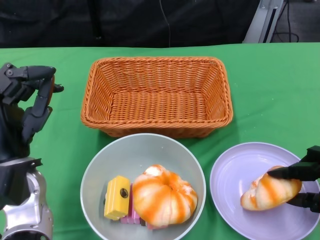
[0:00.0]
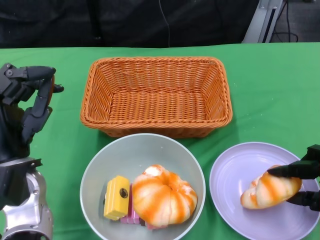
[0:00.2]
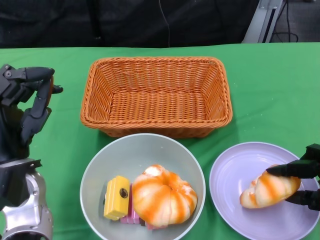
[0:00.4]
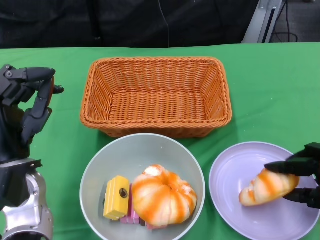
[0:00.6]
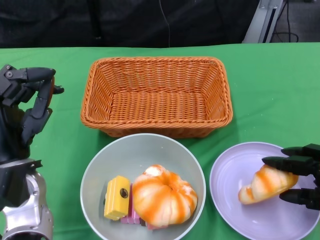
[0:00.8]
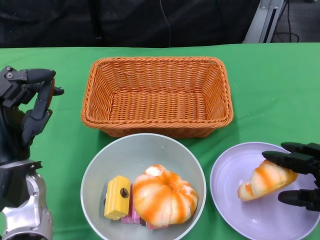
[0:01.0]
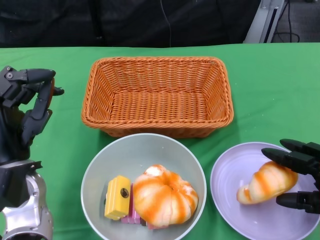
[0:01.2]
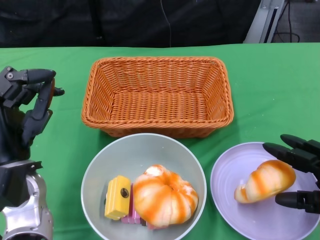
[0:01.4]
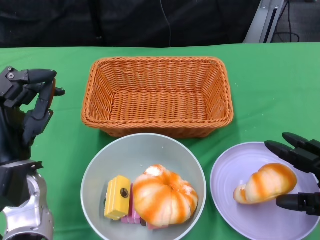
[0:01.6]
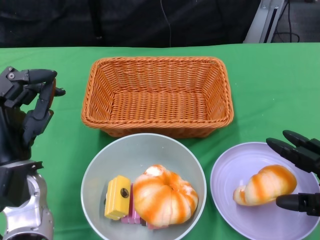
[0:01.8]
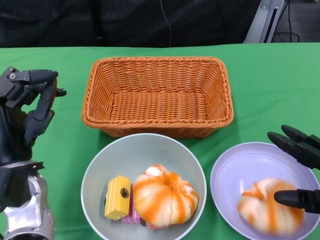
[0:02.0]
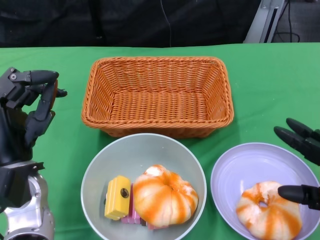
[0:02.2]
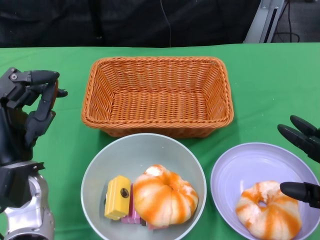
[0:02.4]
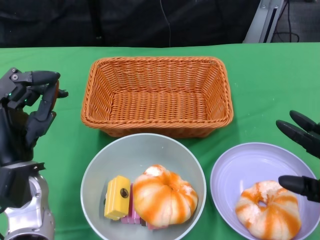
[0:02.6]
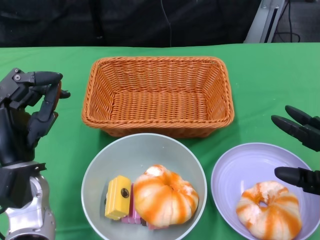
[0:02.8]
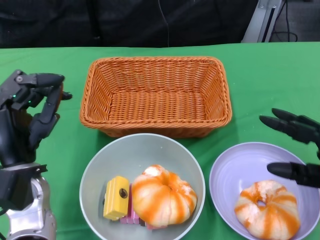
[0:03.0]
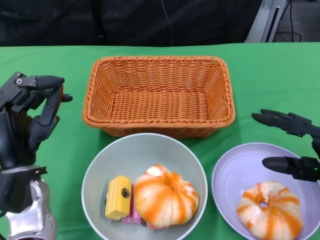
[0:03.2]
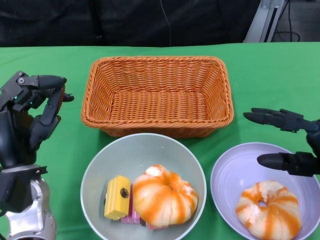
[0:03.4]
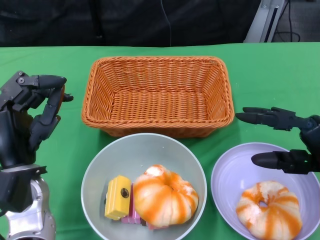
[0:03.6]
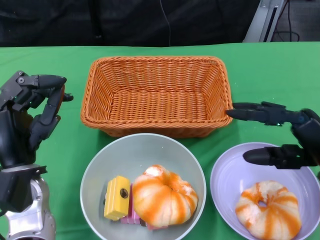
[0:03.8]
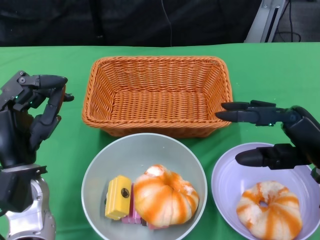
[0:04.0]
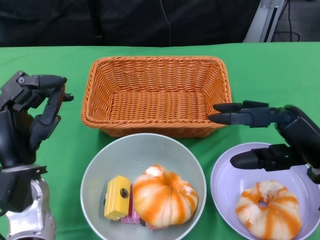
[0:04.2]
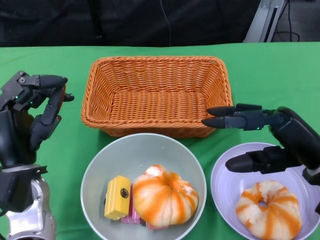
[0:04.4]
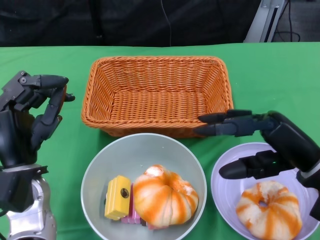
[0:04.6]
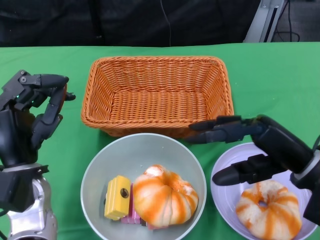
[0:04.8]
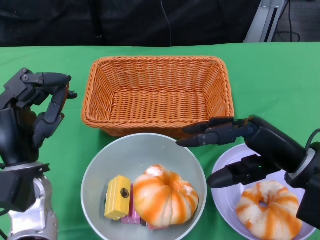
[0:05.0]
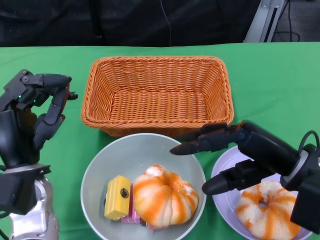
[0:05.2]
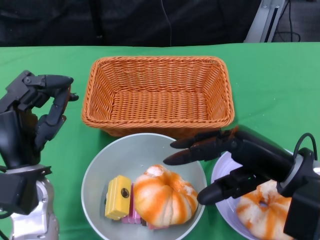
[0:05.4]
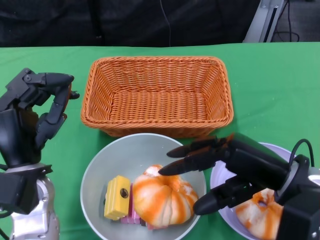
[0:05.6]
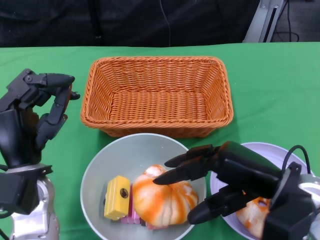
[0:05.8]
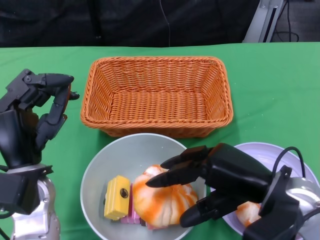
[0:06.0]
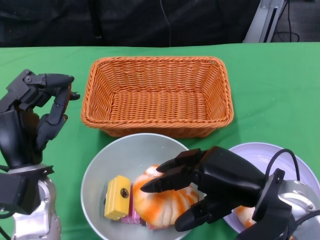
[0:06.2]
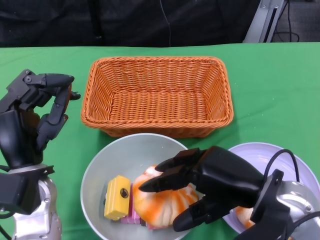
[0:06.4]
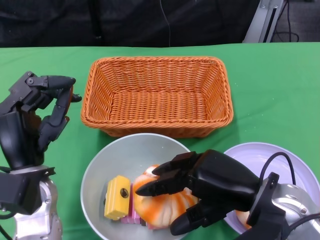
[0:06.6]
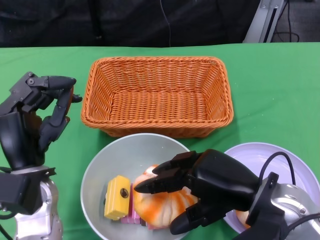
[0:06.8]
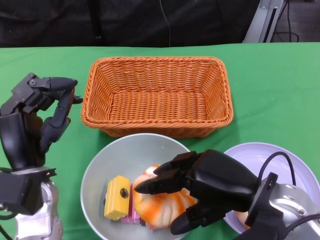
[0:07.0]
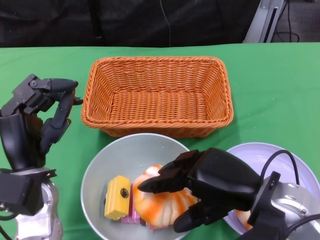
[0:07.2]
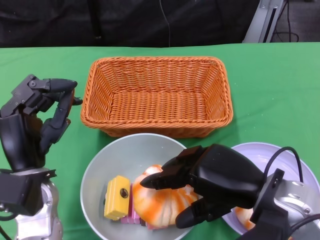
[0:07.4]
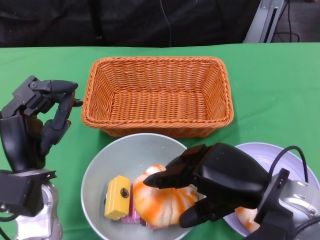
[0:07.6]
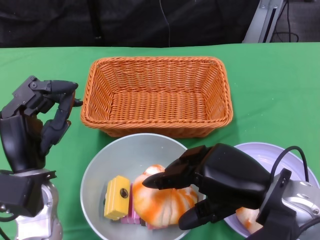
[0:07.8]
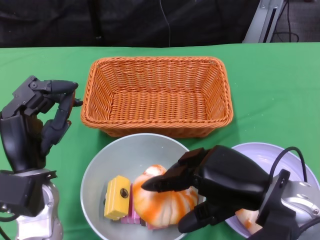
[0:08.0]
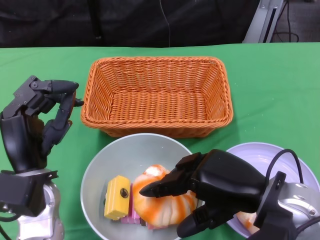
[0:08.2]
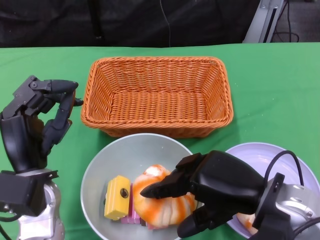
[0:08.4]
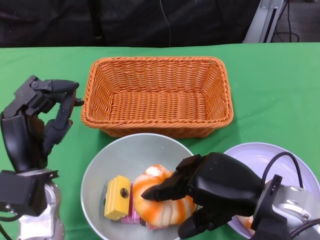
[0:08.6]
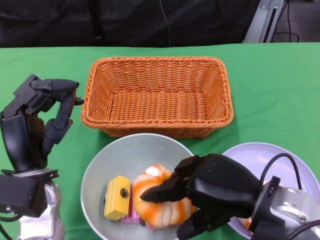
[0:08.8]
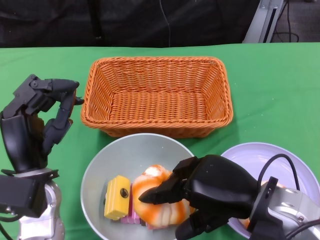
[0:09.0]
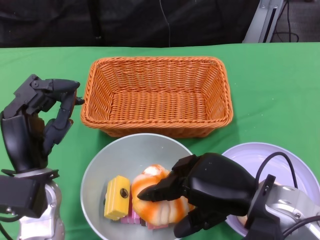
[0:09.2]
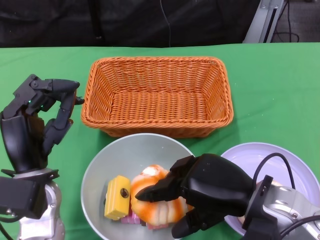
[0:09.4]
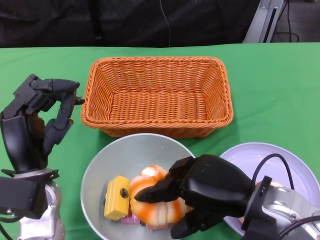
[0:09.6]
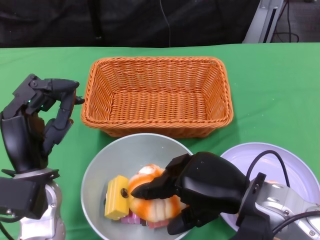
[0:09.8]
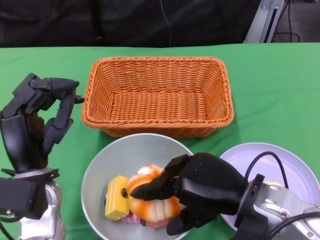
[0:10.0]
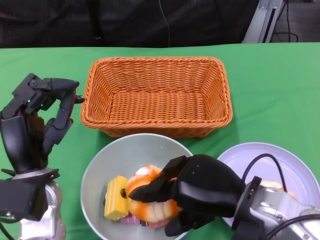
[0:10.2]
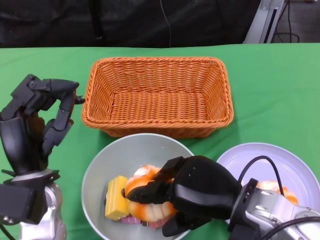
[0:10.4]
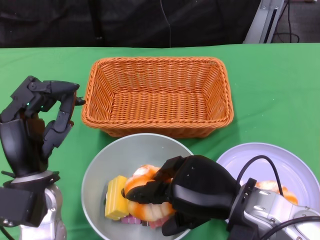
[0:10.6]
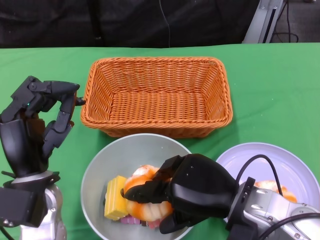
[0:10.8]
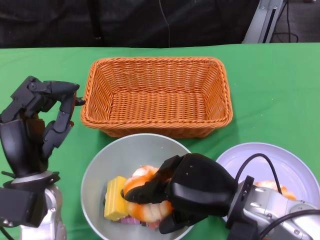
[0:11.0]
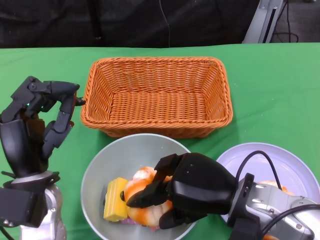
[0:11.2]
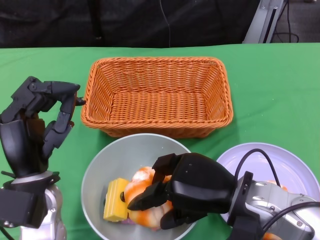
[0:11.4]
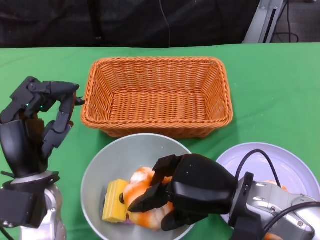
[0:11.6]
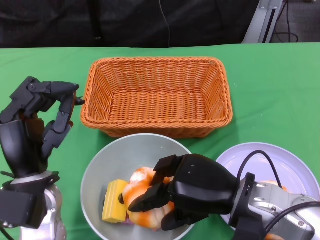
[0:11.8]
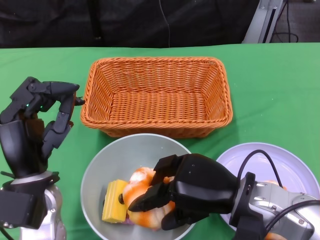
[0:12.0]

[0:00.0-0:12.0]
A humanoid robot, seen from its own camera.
0:00.0 to 0:01.6: Both hands stay about where they are.
0:01.6 to 0:03.0: The hands stay close to where they were, moving slightly.
0:03.0 to 0:04.4: The right hand is displaced upward by approximately 5 cm.
0:04.4 to 0:06.0: The right hand shifts about 5 cm to the left.
0:06.0 to 0:09.0: There are only small adjustments of the hands.
0:09.0 to 0:12.0: There are only small adjustments of the hands.

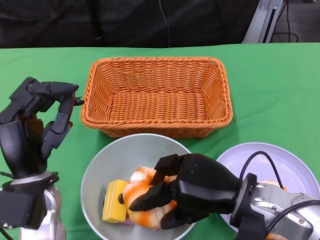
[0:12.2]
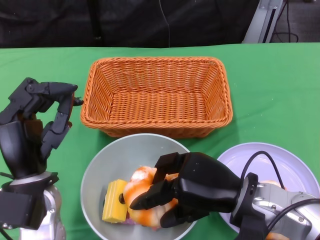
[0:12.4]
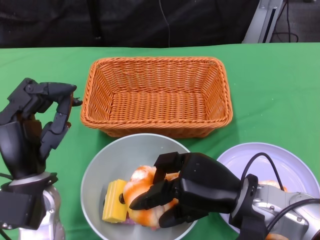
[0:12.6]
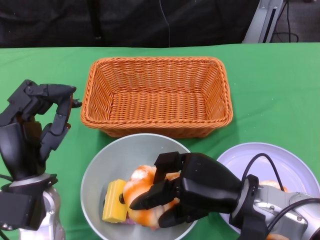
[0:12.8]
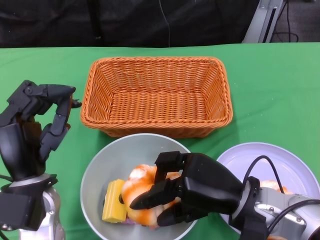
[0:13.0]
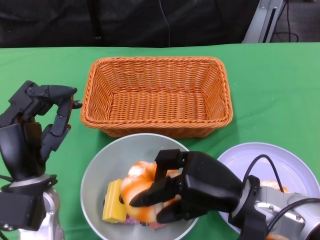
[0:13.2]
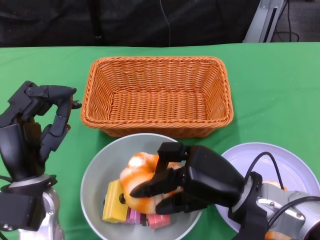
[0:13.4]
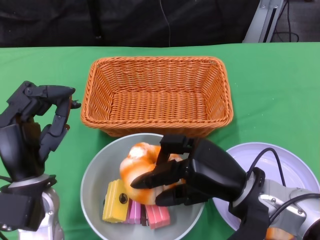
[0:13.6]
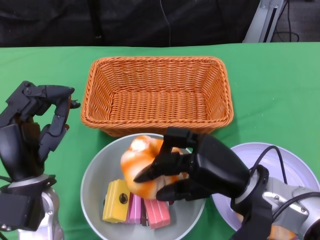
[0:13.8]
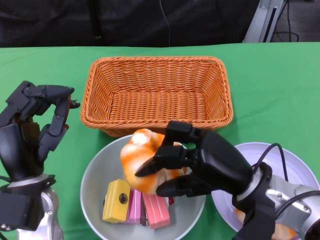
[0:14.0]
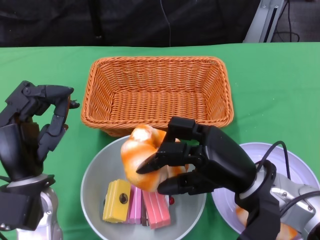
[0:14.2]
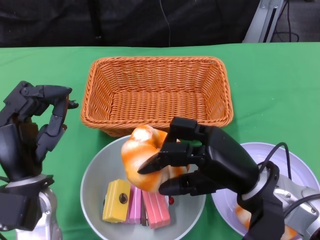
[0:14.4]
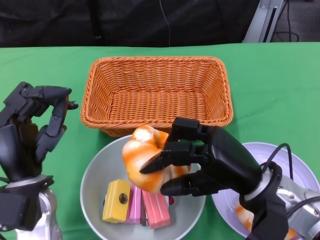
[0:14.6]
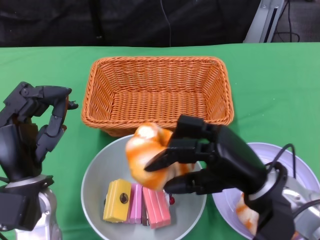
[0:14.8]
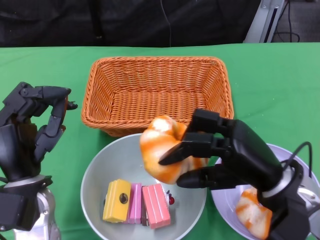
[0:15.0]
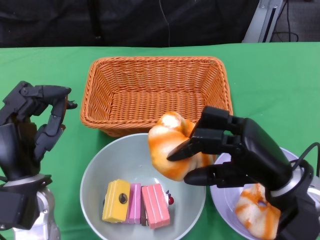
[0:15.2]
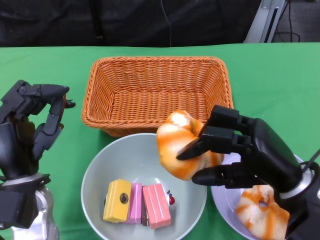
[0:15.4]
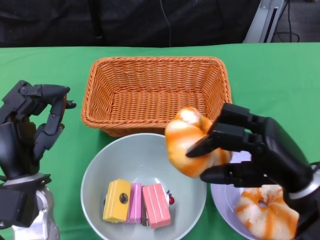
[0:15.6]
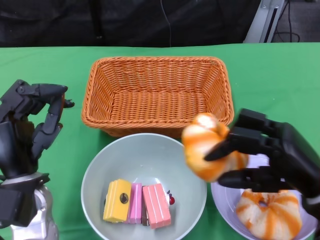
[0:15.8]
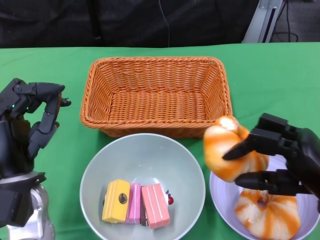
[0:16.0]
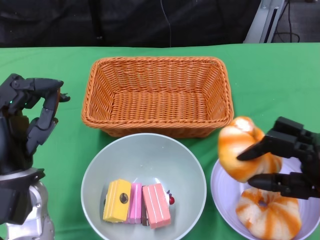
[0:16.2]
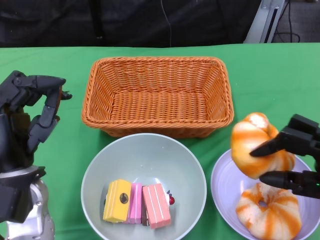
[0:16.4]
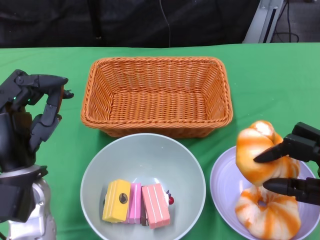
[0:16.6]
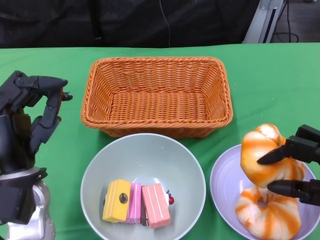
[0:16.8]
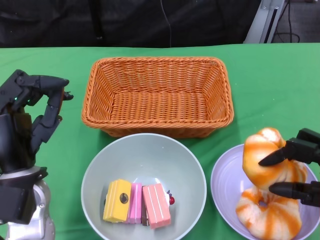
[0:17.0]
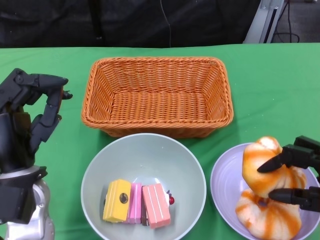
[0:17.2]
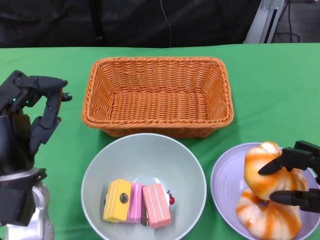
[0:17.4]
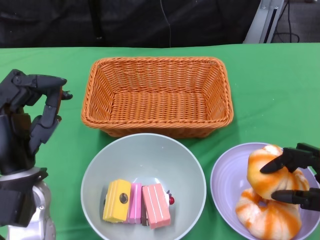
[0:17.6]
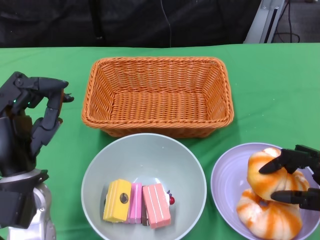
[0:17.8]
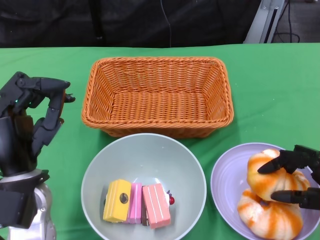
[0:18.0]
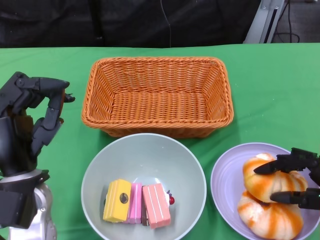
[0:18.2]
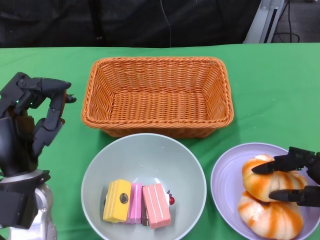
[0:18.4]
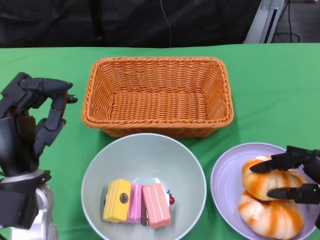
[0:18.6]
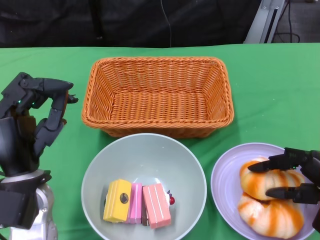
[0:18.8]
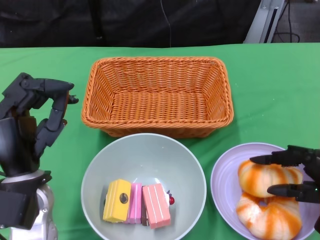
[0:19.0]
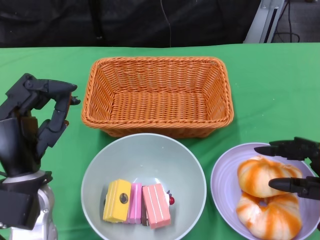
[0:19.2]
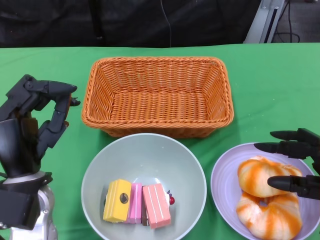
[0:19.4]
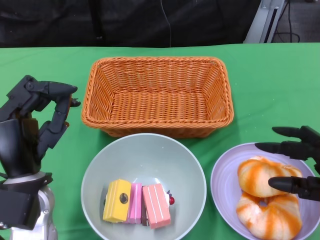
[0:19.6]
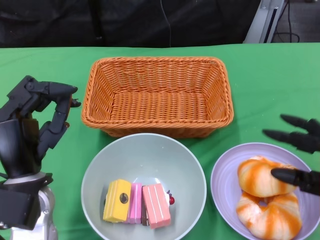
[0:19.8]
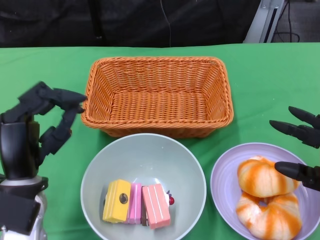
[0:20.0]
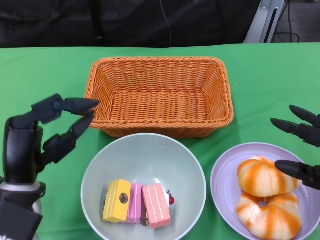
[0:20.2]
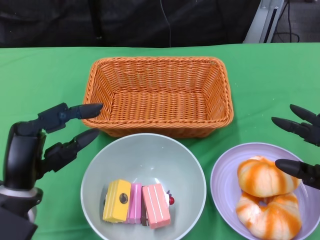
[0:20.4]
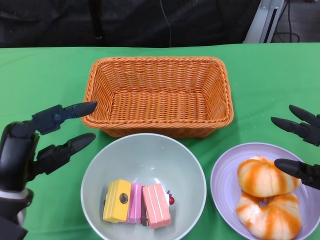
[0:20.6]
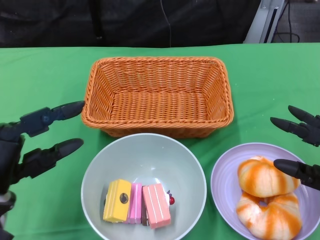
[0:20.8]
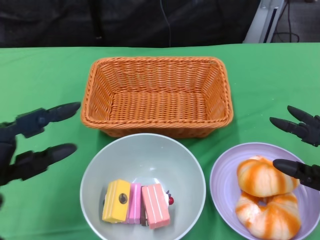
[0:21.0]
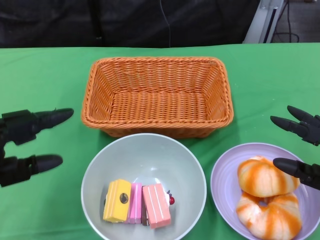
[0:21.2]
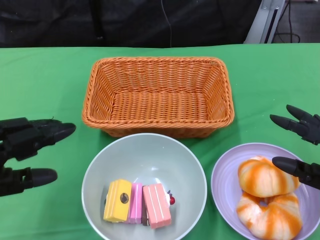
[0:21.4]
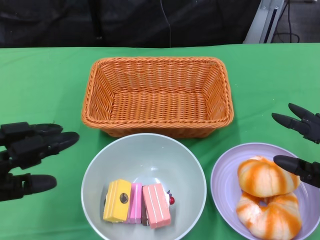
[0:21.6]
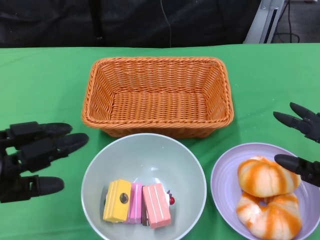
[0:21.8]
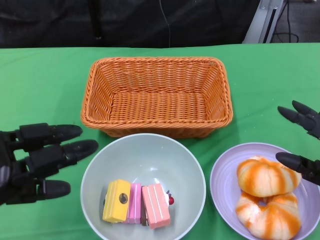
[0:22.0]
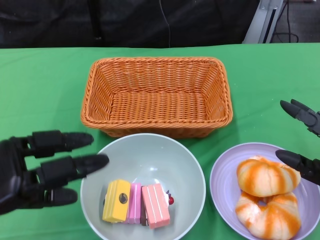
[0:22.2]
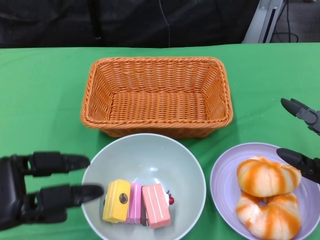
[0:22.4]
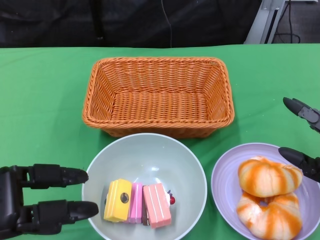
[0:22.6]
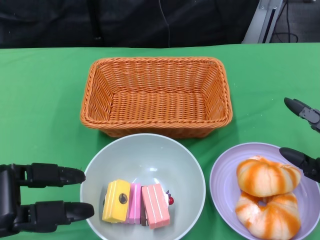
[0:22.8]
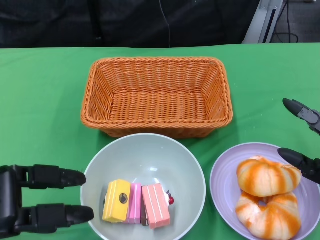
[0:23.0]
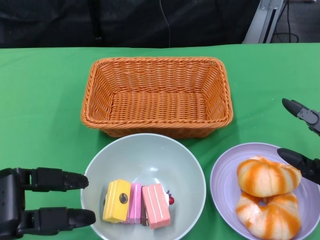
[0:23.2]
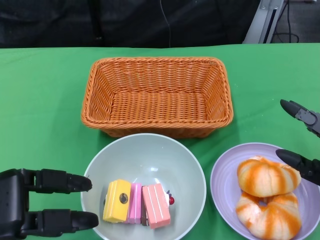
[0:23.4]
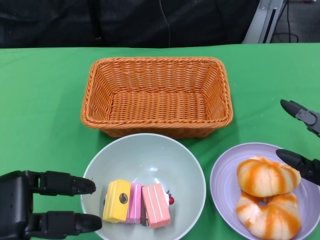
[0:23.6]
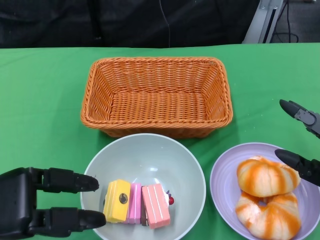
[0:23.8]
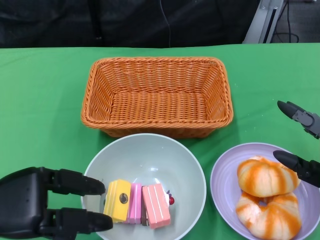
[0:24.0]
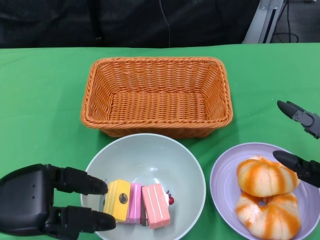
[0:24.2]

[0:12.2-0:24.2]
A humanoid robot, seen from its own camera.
Step, 0:12.2 to 0:20.6: Pick up the bread with the right gripper and place it on the plate.
0:13.8 to 0:15.2: The right hand ends up about 5 cm from where it was.
0:15.2 to 0:16.6: The right hand heads to the right, covering about 10 cm.
0:18.2 to 0:19.8: The hands stay close to where they were, moving slightly.
0:19.8 to 0:21.2: The left hand travels to the left by some 10 cm.
0:22.6 to 0:24.2: The hands move only a little.
